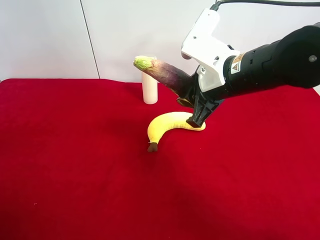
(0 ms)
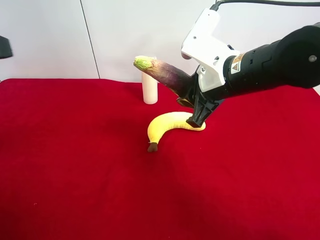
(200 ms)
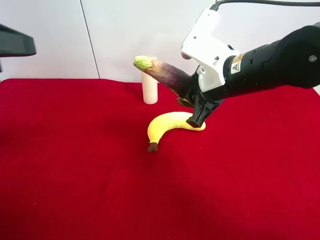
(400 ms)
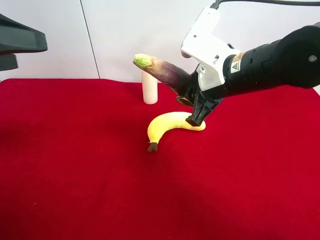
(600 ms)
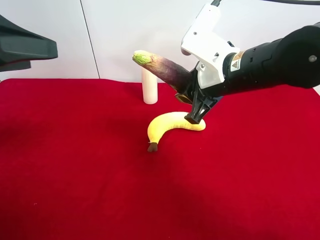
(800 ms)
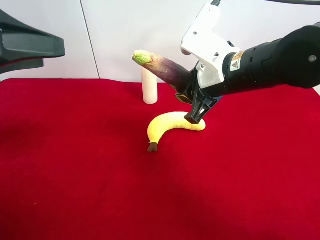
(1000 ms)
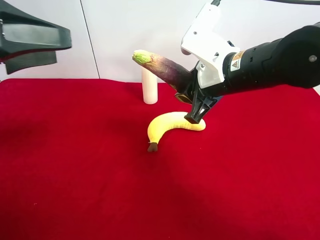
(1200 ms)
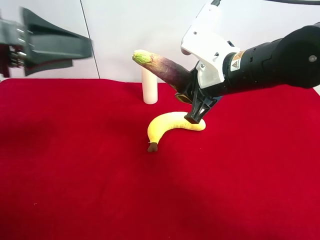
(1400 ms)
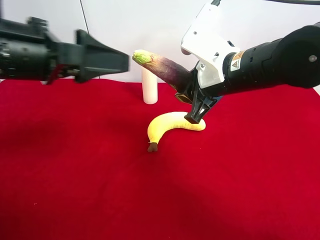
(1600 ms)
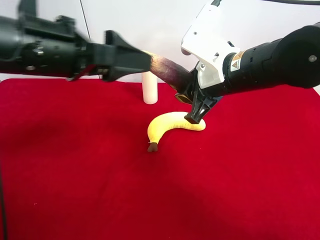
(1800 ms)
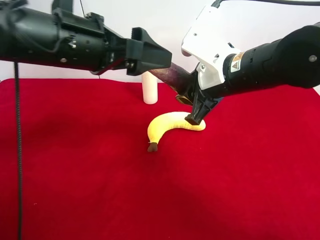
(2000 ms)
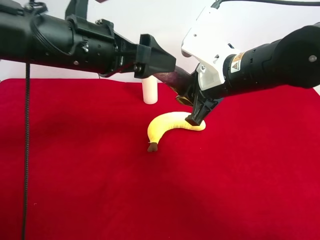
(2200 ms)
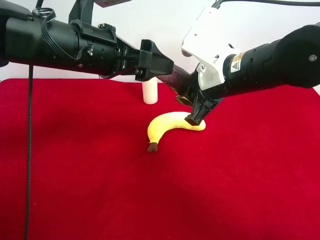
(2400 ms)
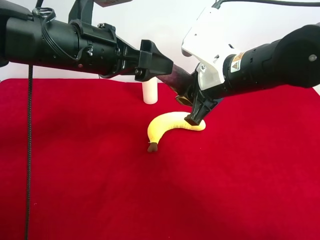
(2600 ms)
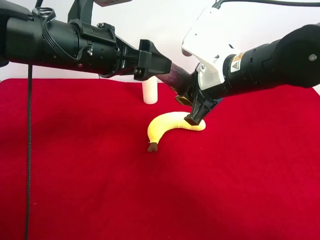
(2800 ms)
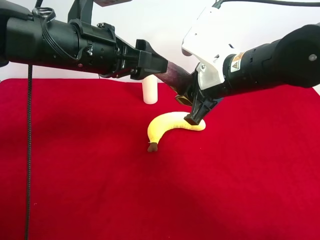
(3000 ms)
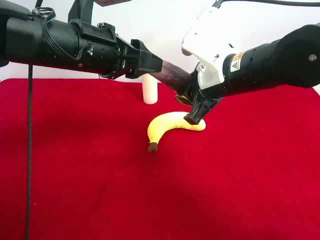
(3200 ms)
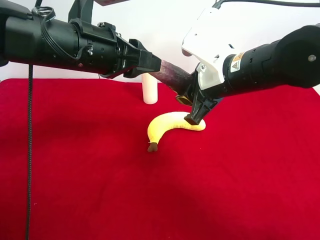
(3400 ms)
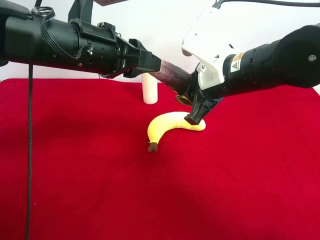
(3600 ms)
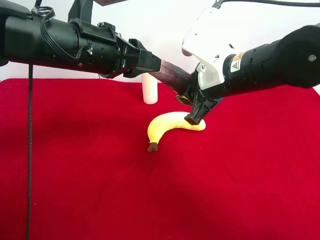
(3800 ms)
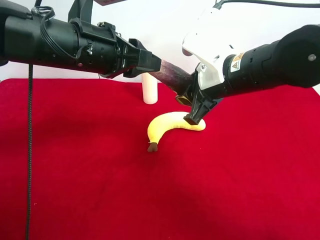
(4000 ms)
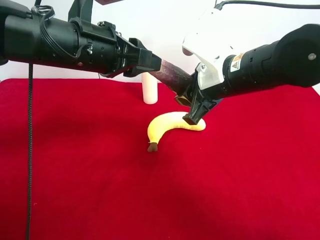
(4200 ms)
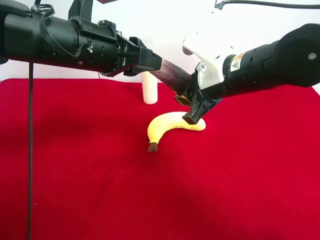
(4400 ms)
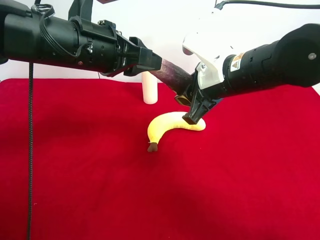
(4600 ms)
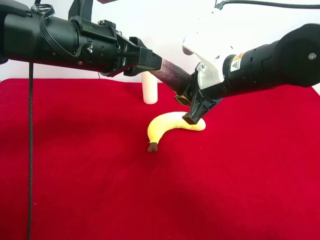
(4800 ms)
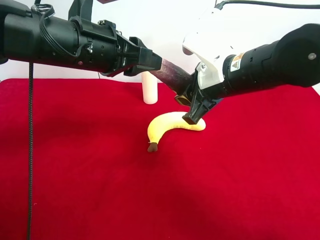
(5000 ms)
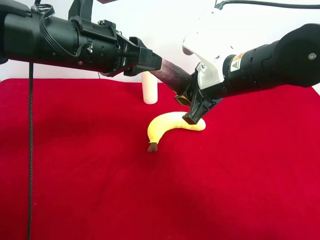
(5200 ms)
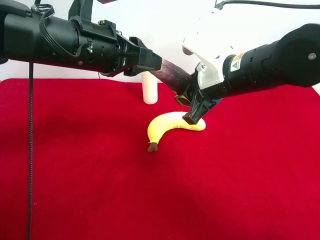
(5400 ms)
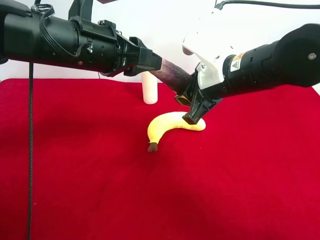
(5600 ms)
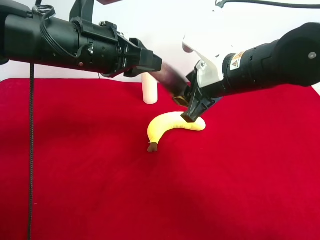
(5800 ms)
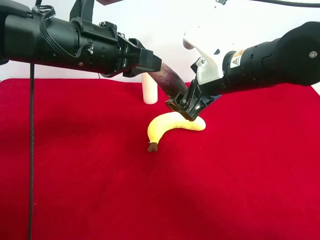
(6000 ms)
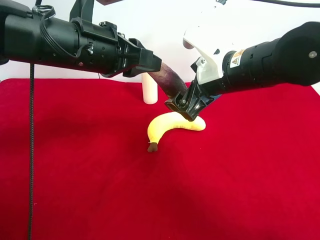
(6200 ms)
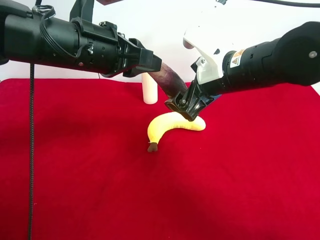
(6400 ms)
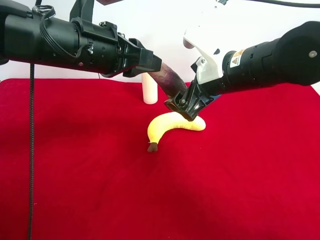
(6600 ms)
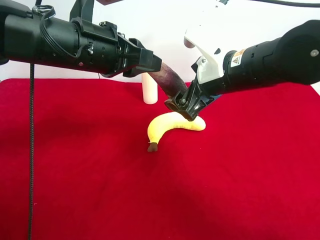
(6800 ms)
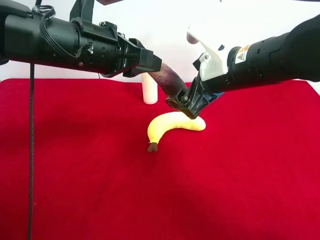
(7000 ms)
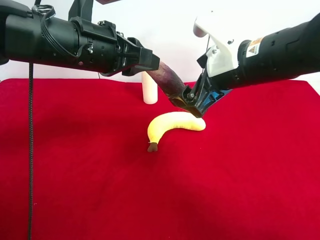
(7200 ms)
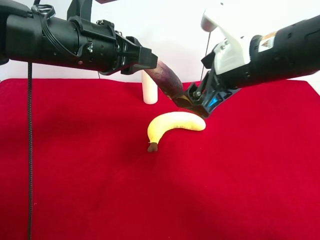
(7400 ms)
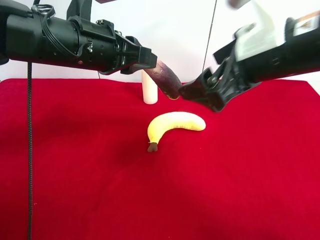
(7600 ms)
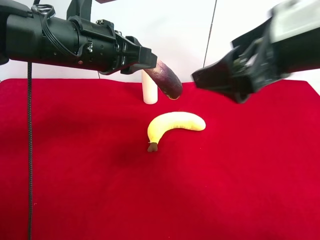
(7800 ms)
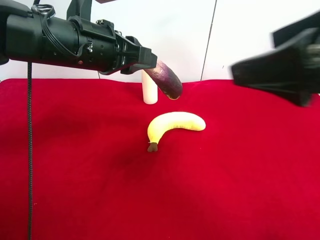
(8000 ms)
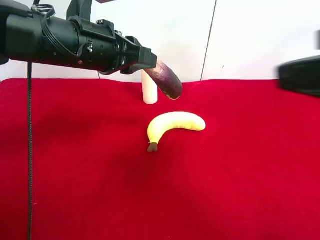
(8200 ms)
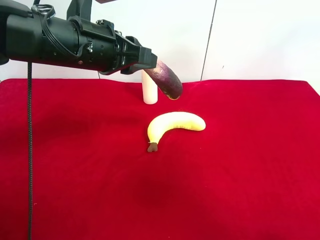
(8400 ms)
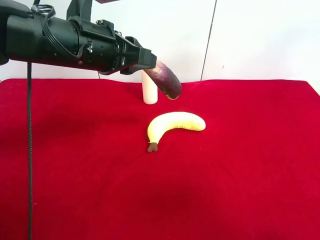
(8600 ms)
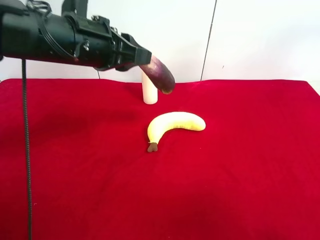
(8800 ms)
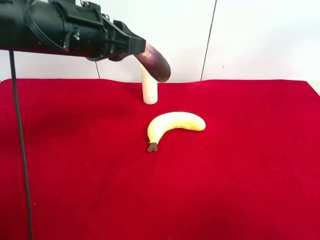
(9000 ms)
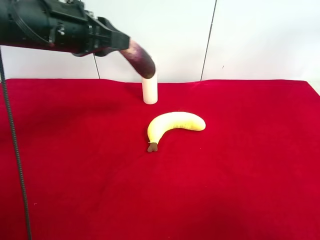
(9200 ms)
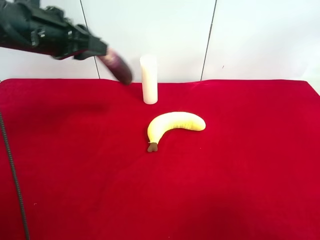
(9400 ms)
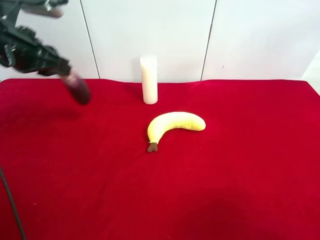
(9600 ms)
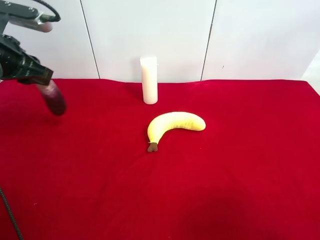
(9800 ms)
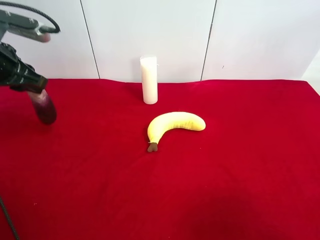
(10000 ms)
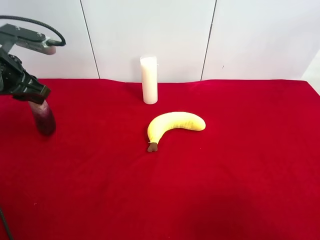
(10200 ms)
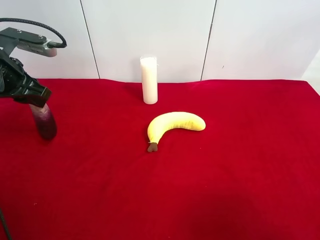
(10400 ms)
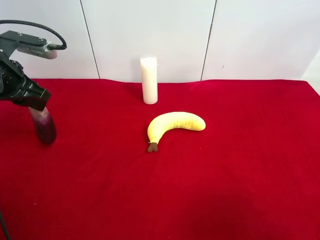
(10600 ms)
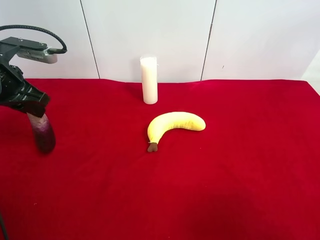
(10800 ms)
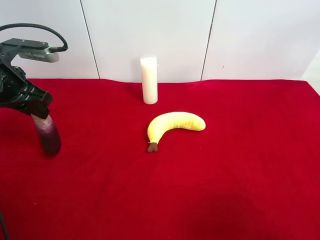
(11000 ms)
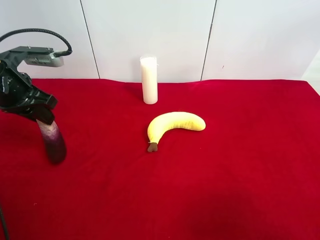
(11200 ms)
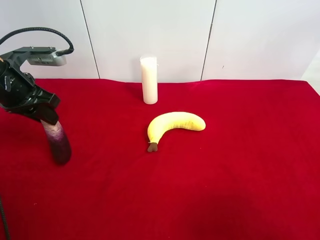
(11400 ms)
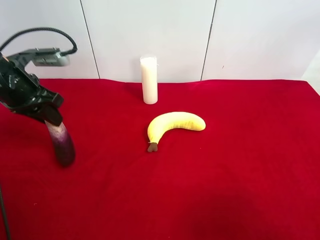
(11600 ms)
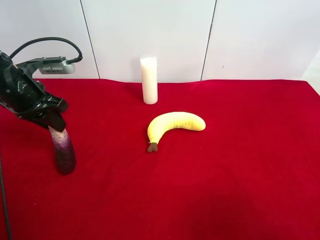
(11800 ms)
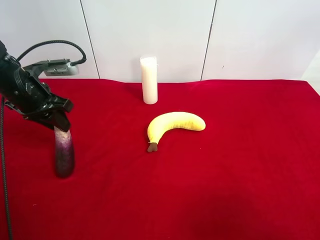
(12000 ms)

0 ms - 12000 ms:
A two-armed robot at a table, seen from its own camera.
Task of the whole recording: use the right gripper to pick up the item and transfer it from the right gripper to the left gripper.
Step, 0 ms - 6000 ms: Pass the eggplant to the left gripper.
0 ms - 1600 ms: The left gripper goes about 15 cm to the right and forward.
1600 ms - 3000 ms: The left gripper shifts about 5 cm to the right, and closes up.
3000 ms - 4400 ms: The left gripper closes its fingers.
4400 ms - 6000 ms: The right gripper opens up.
6000 ms - 7600 ms: The right gripper travels upward and backward by roughly 10 cm.
7600 ms - 9000 ms: The right gripper goes some 30 cm backward and to the right.
9000 ms - 10400 ms: The right gripper moves downward, roughly 10 cm; the left gripper shifts about 15 cm to the left and downward.
10400 ms - 12000 ms: The left gripper shifts about 5 cm downward.

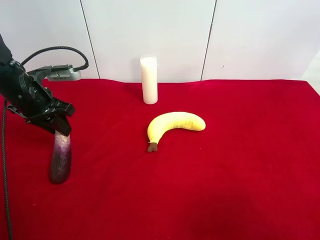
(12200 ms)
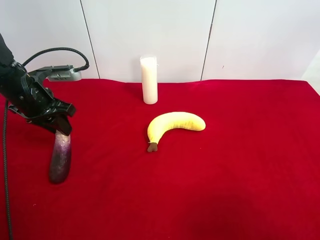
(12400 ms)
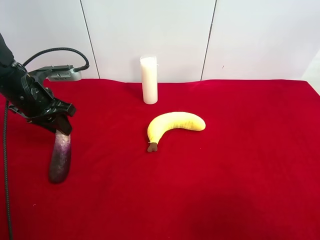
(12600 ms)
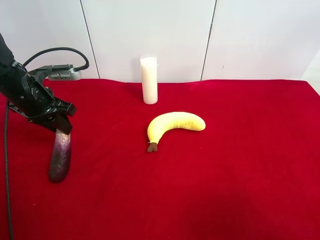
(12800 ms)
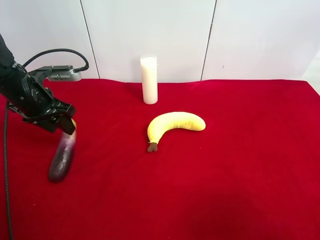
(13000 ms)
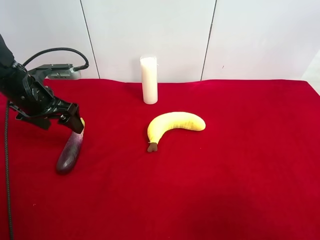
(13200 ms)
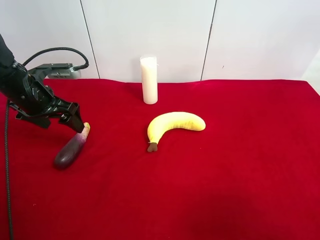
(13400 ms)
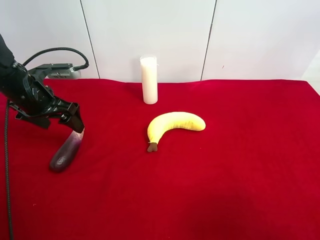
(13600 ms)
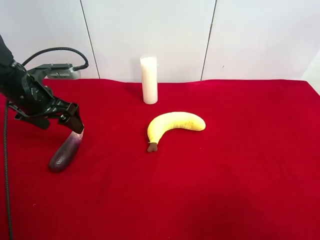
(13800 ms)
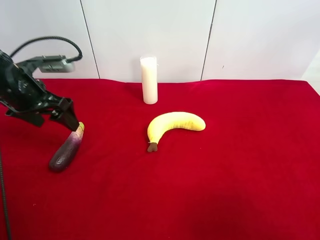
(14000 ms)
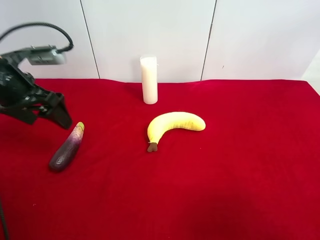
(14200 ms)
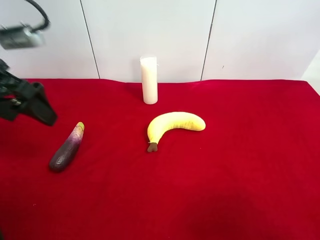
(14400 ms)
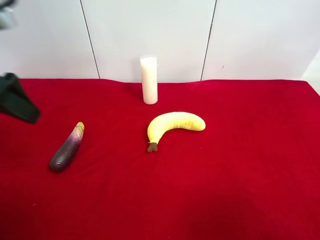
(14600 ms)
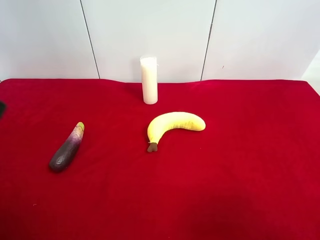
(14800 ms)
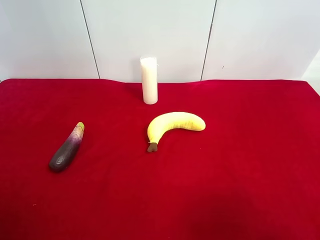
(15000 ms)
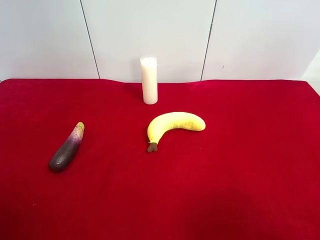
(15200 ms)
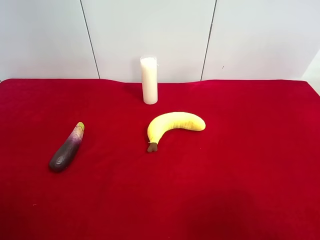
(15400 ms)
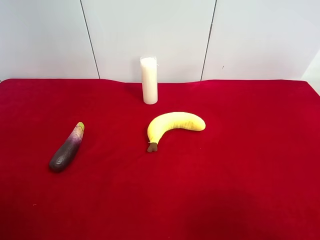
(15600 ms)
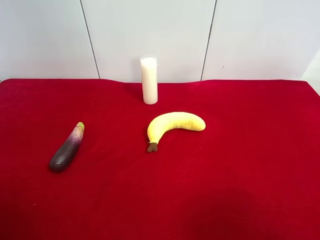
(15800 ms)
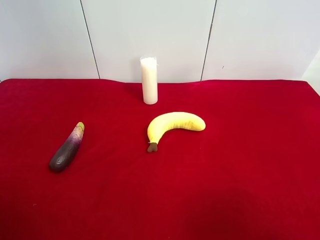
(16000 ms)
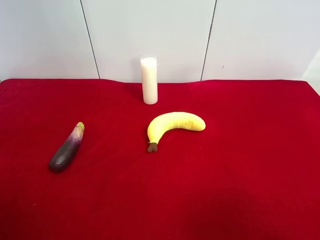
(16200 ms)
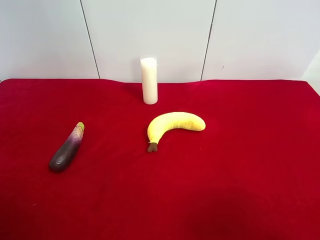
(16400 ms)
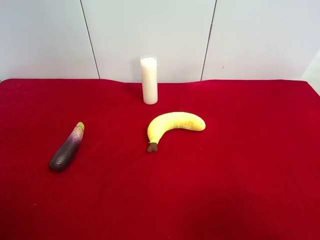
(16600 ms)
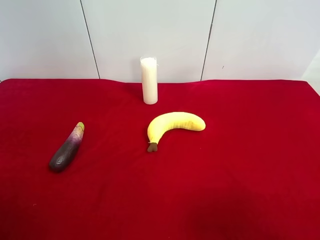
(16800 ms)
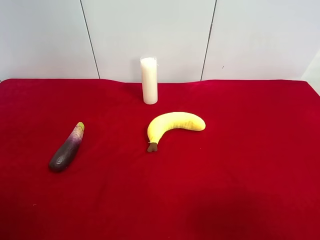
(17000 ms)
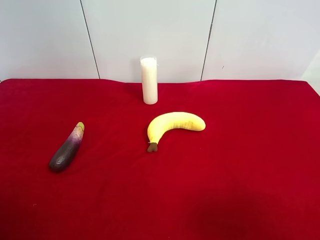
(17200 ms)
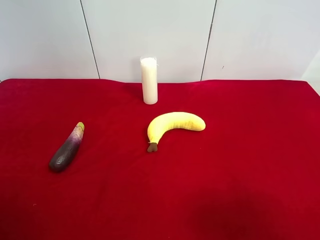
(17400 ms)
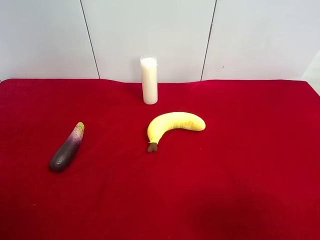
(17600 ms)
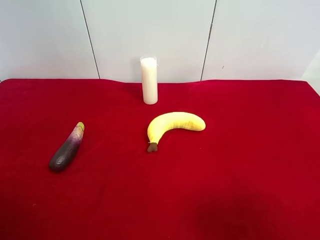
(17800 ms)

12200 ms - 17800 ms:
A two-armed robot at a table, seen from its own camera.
Task of the whole recording: use the right gripper to pick up the item and transfer it from the right gripper to the left gripper.
12200 ms - 13600 ms: The left gripper opens up.
13600 ms - 15000 ms: The left gripper heads backward and upward, covering roughly 30 cm.
